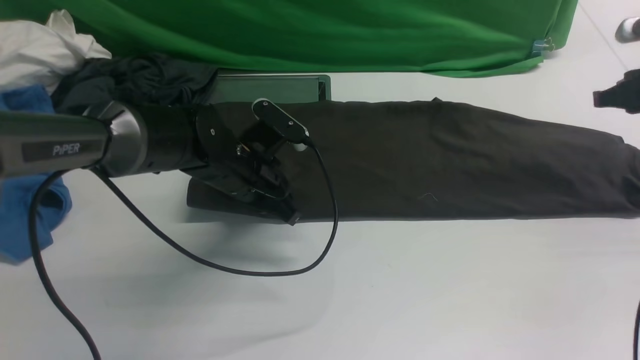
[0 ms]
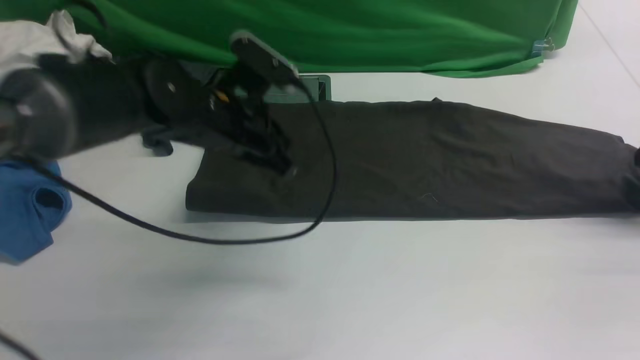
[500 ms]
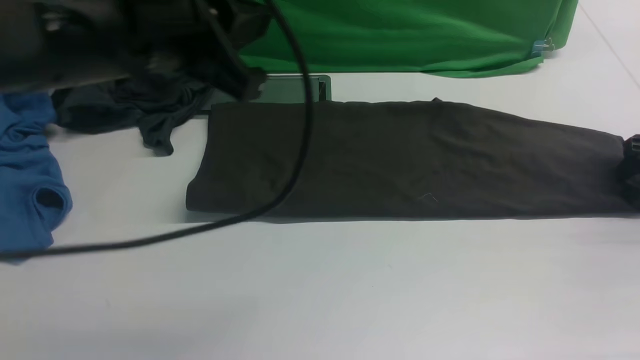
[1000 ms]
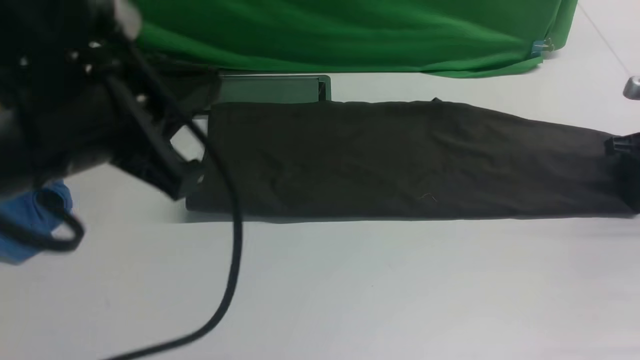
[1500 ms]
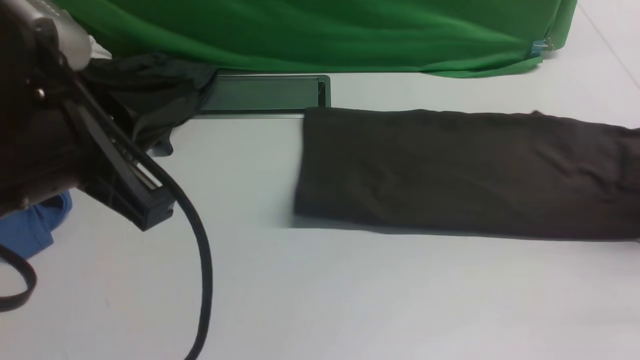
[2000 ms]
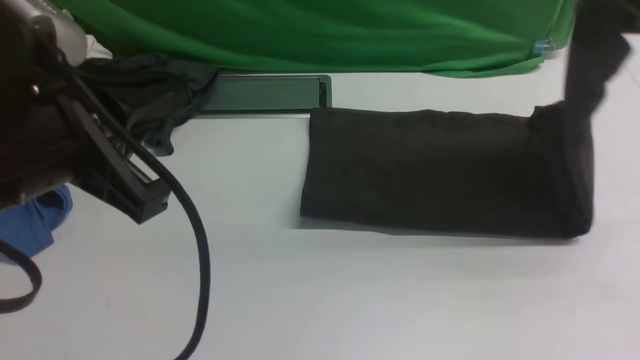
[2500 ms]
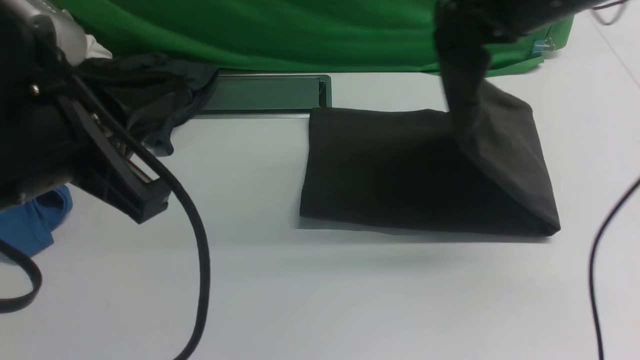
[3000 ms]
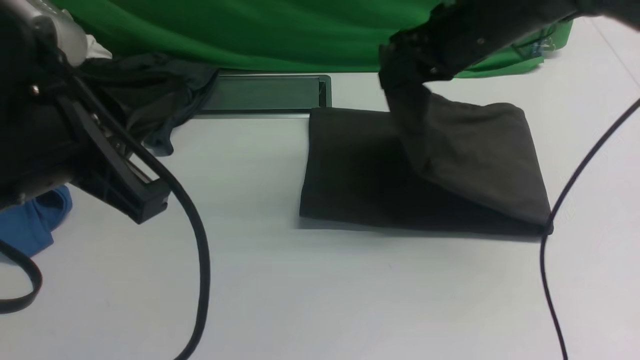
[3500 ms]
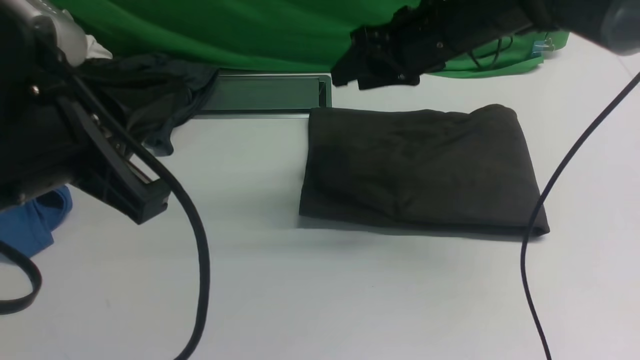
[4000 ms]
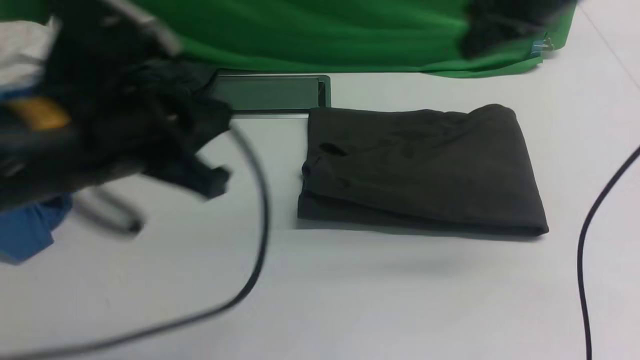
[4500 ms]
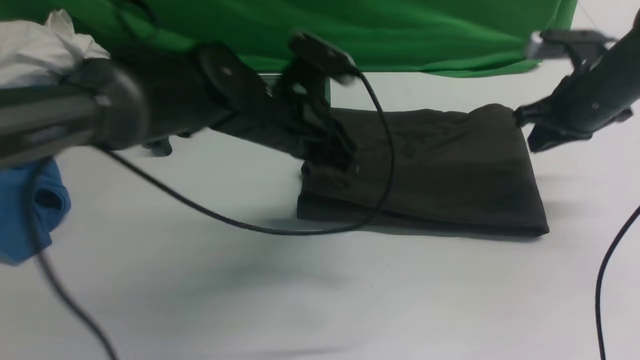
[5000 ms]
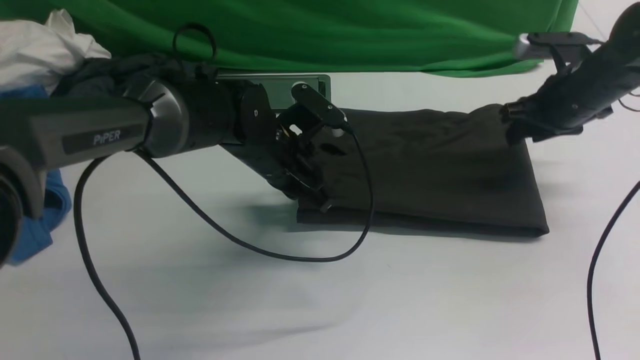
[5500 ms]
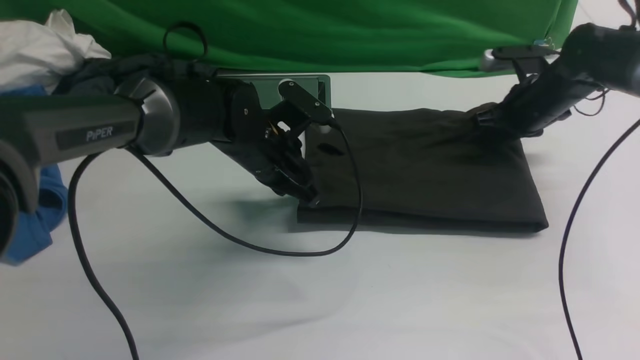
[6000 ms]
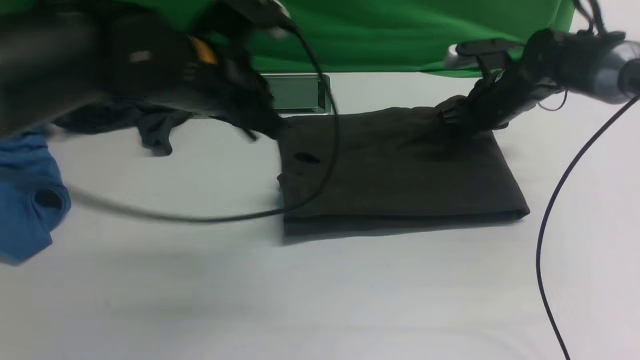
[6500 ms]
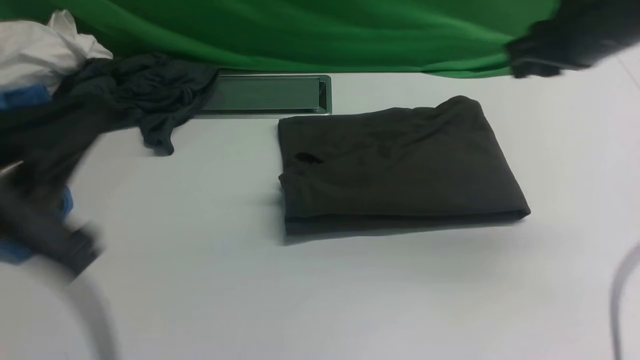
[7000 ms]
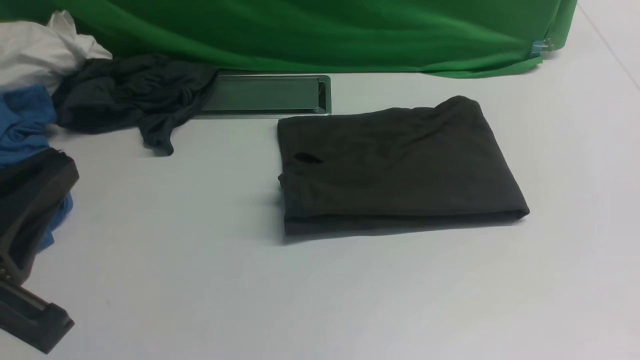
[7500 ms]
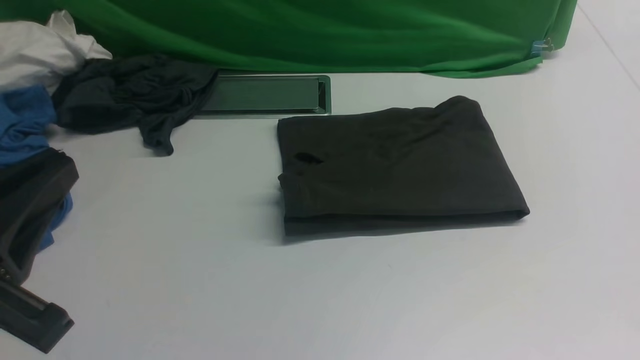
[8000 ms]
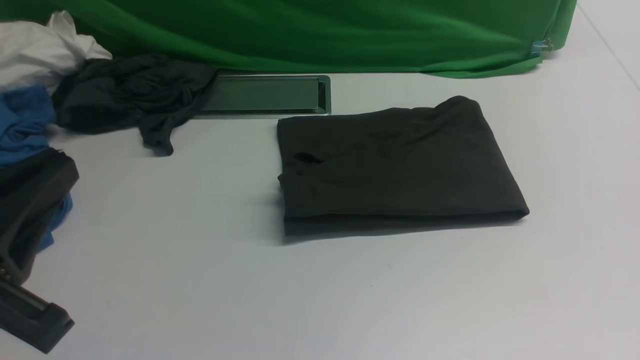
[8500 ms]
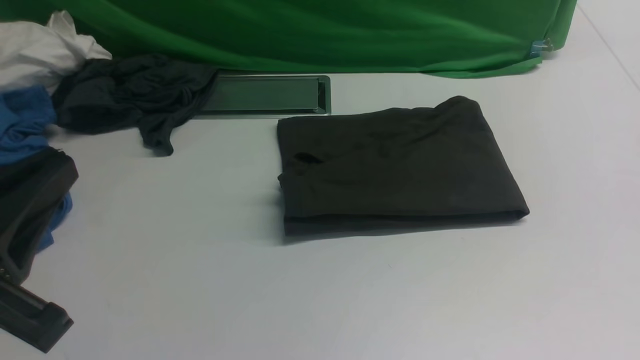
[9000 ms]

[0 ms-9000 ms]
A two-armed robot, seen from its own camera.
Step, 2000 ms to 4000 ms: use the right arm to drag the right edge of the fabric to the left and folds it over the left edge.
0 ms to 2000 ms: The left gripper is displaced upward and backward by approximately 30 cm. The right gripper shifts about 10 cm upward and to the right, and opens and closes again.
2000 ms to 4500 ms: The right gripper shifts some 25 cm to the left, and opens and closes again; the left gripper is displaced forward by about 5 cm.
4500 ms to 7000 ms: The right gripper shifts roughly 5 cm backward, and travels downward and back again, approximately 20 cm each way. The left gripper shifts roughly 15 cm backward and to the left.
7000 ms to 9000 ms: The right gripper shifts about 30 cm backward and downward.

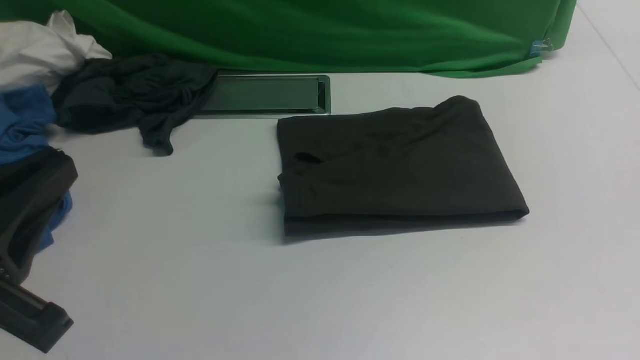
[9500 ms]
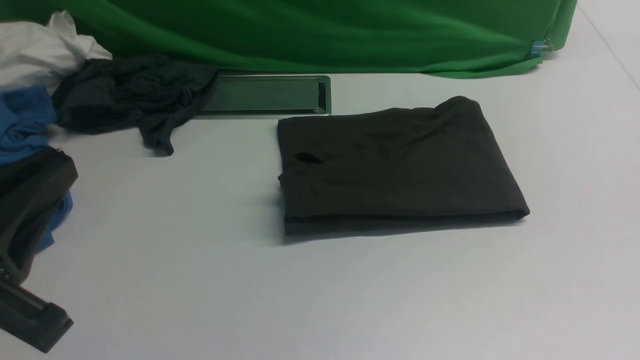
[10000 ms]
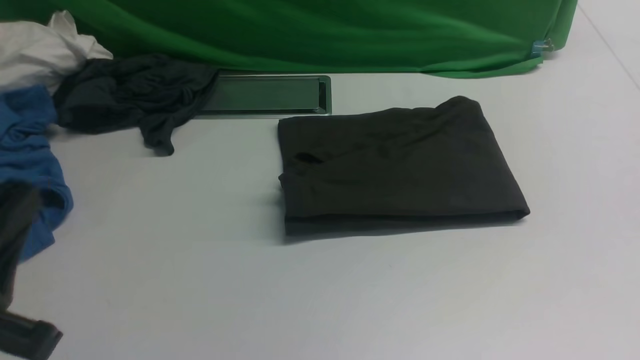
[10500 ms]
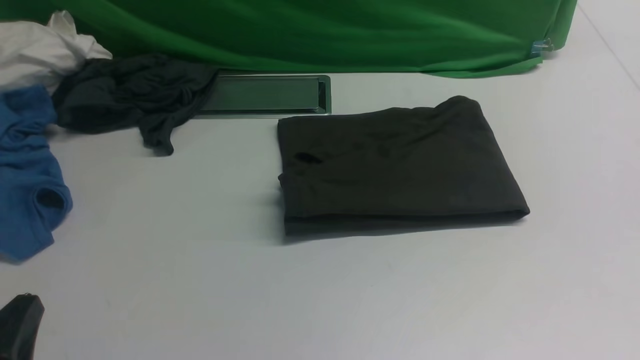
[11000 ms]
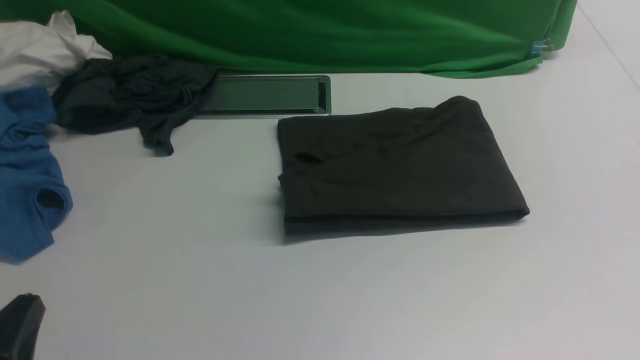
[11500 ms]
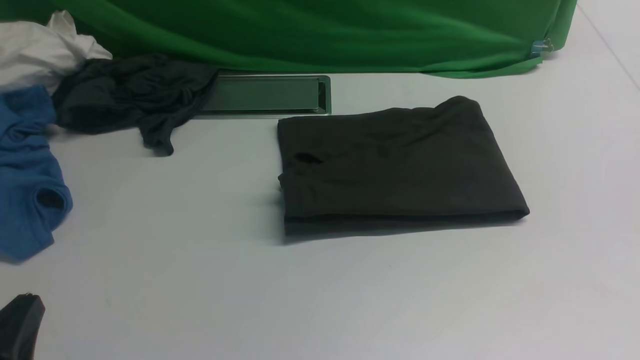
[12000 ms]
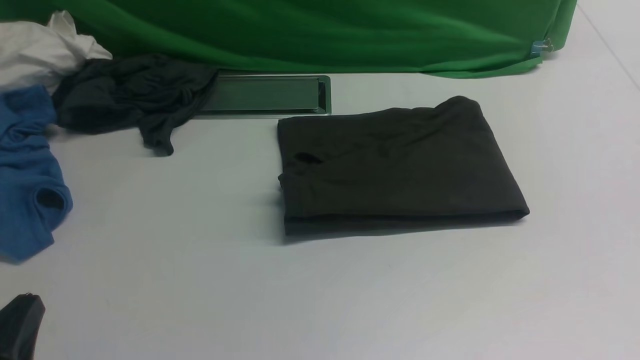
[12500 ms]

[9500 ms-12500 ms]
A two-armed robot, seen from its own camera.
9500 ms to 11000 ms: The left gripper is displaced downward by about 15 cm.
11000 ms to 12500 ms: Both grippers stay about where they are.
